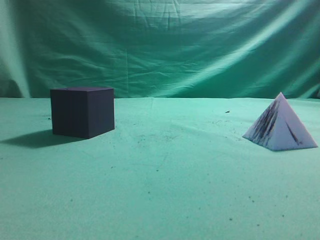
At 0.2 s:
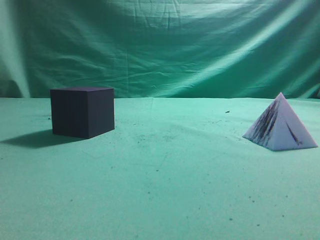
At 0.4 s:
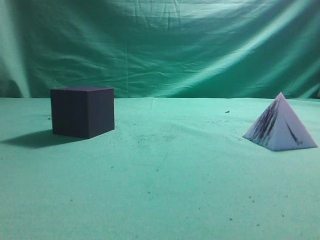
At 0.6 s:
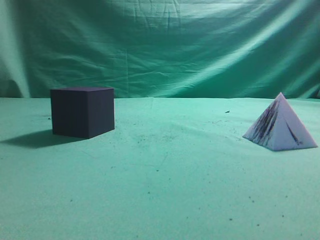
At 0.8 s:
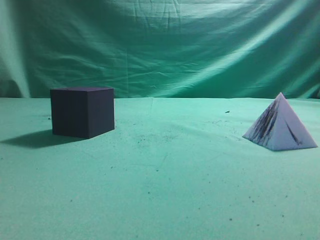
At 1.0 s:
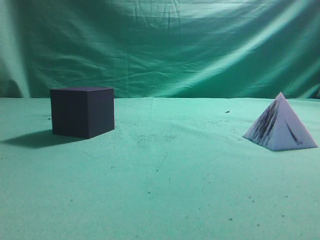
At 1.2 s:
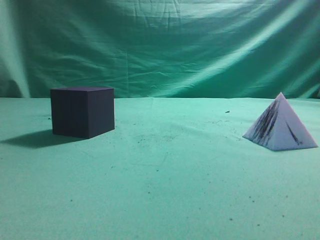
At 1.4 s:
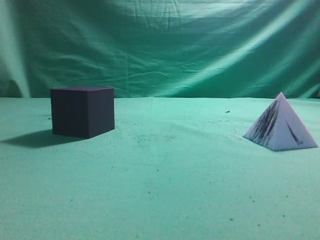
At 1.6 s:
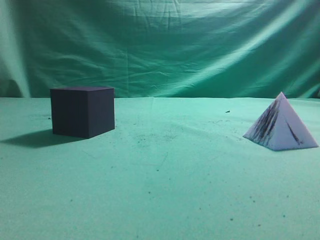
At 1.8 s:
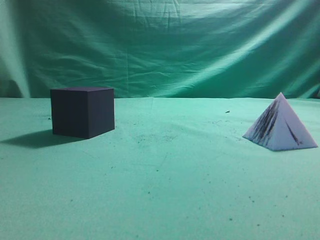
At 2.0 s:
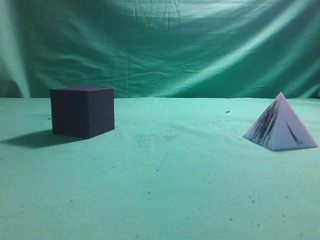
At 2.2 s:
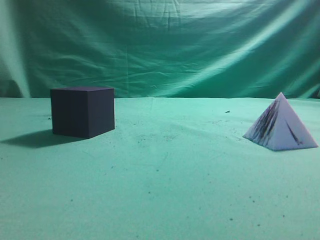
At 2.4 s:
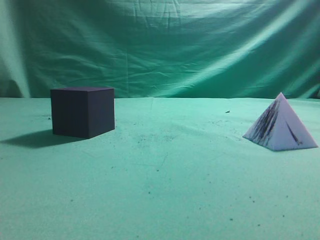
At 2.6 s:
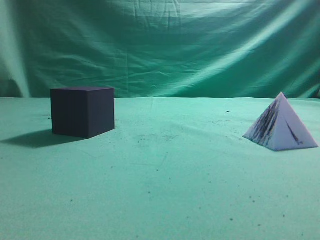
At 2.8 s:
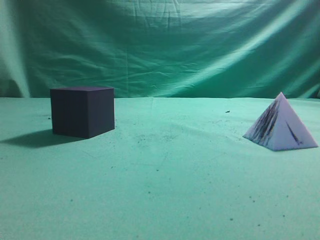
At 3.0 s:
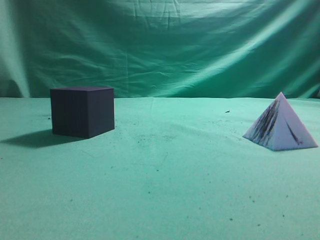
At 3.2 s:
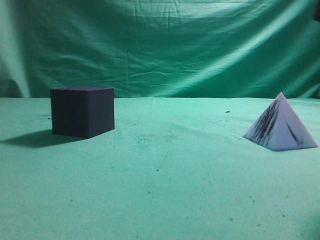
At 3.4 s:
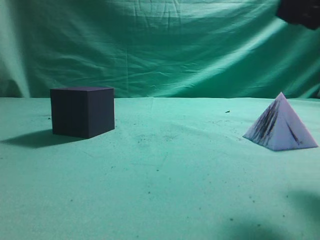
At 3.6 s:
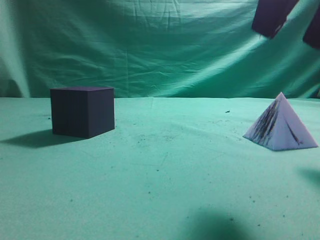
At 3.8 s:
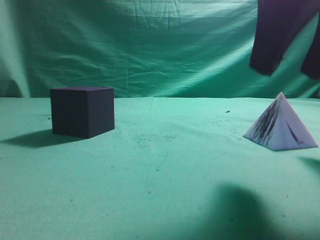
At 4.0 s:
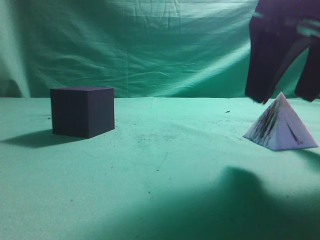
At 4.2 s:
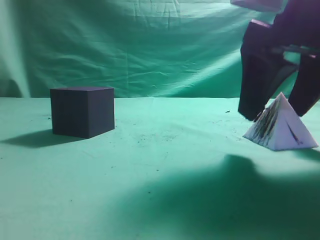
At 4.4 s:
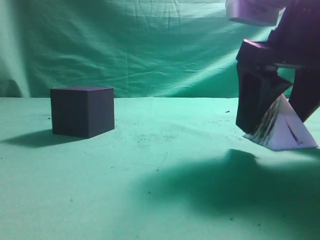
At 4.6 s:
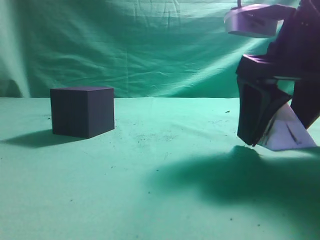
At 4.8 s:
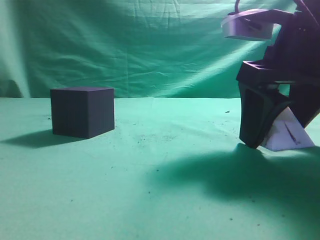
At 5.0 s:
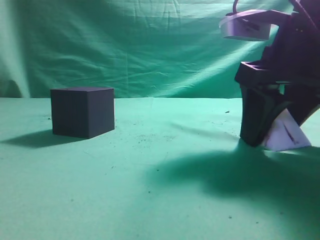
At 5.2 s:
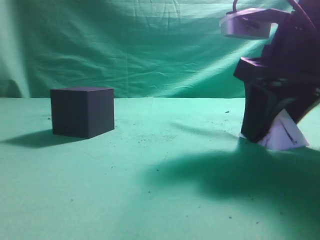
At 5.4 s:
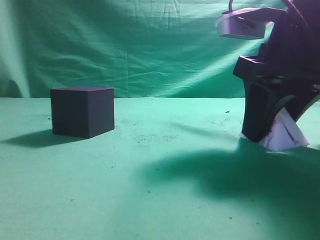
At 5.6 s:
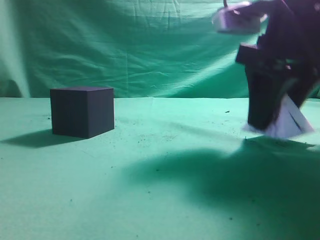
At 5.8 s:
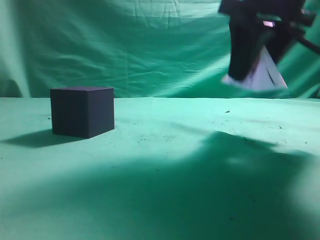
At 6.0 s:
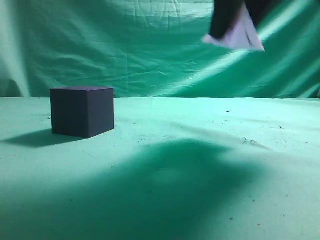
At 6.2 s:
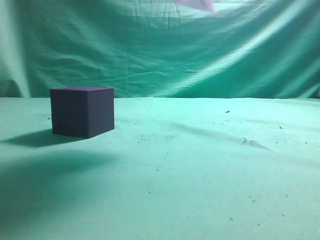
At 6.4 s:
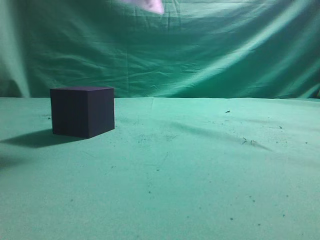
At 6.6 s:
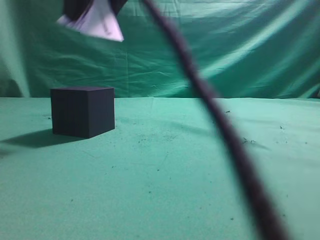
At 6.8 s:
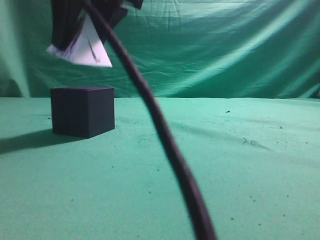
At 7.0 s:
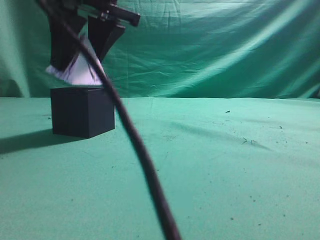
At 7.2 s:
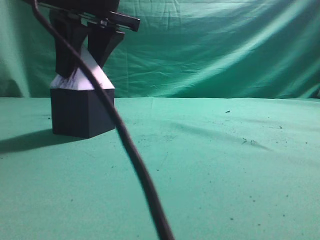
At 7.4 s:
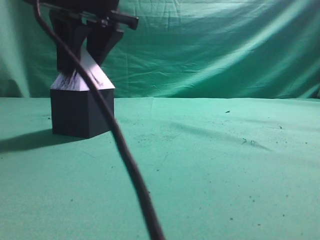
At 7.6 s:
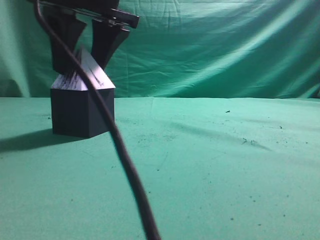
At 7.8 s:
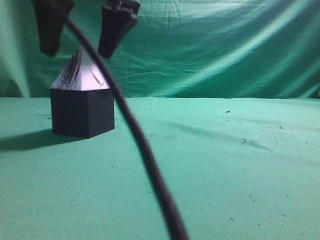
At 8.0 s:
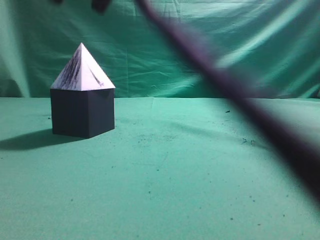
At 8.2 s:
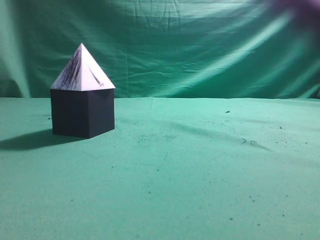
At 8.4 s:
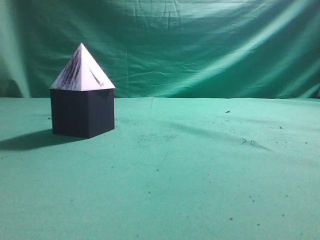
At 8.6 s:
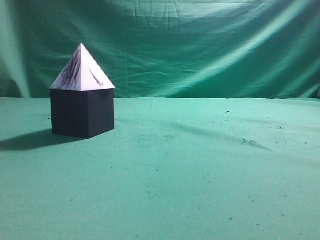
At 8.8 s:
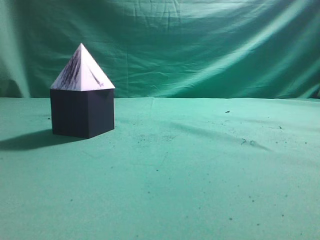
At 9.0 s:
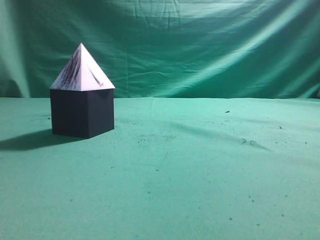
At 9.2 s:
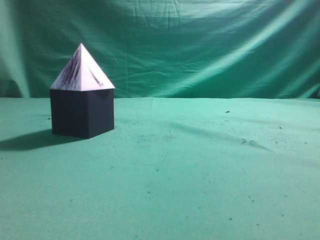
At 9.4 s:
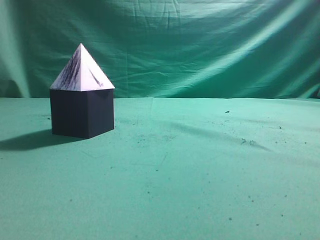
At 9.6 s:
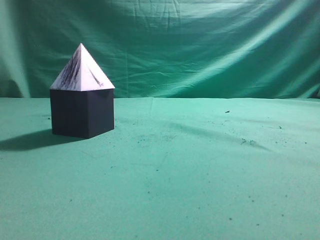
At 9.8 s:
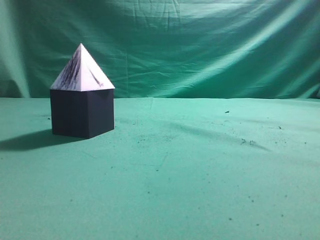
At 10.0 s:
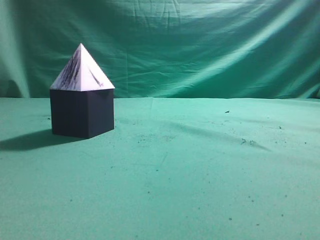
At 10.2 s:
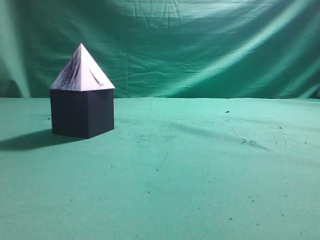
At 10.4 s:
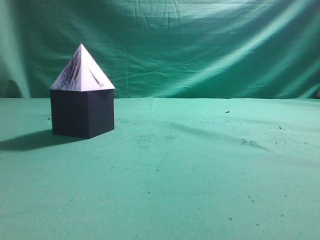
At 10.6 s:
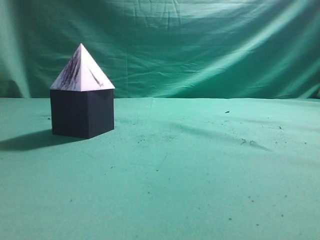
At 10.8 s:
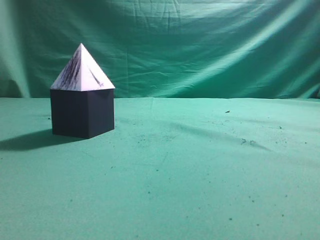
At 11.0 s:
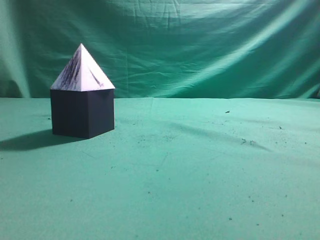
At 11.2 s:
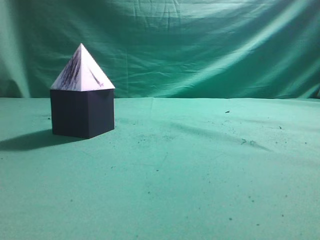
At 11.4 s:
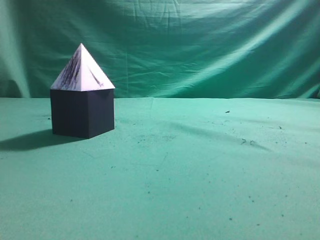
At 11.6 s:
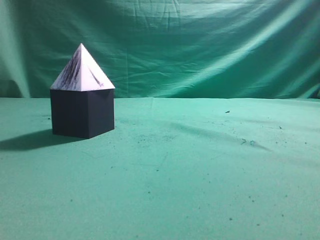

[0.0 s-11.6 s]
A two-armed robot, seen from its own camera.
Task of the whole recording: pick up the square pyramid from the table and place it on the cube block.
Step, 0.0 to 5.6 s: Grasp the triangular block.
Step, 5.8 to 7.6 s: Place the triangular block onto the cube block.
2.8 to 4.4 s: The right gripper is displaced downward, forward and to the left by about 15 cm, and opens its fingers.
4.4 to 5.8 s: The right gripper heads upward, covering about 5 cm.
5.8 to 7.2 s: The right gripper shifts about 20 cm to the left.
7.2 to 8.8 s: The right gripper goes some 30 cm upward, to the right and backward, and closes its fingers.
